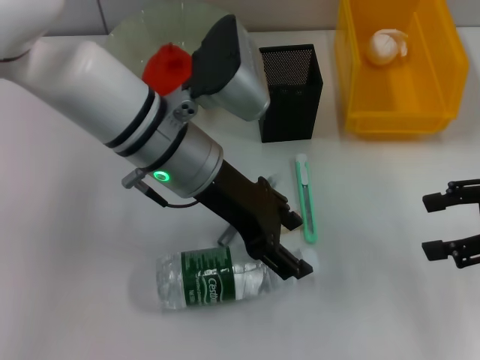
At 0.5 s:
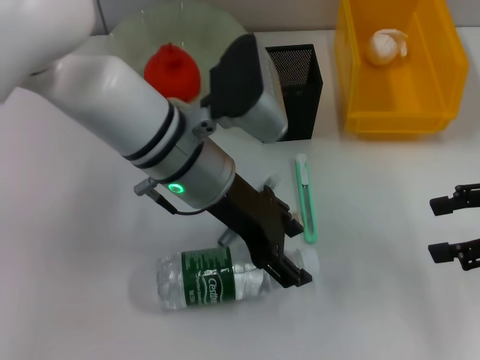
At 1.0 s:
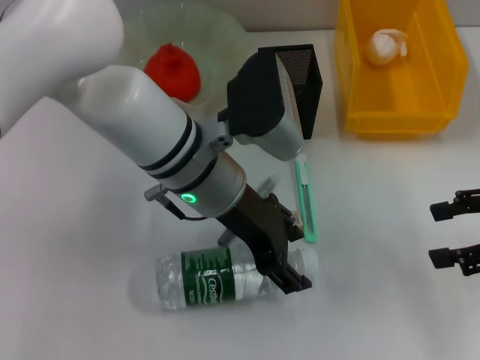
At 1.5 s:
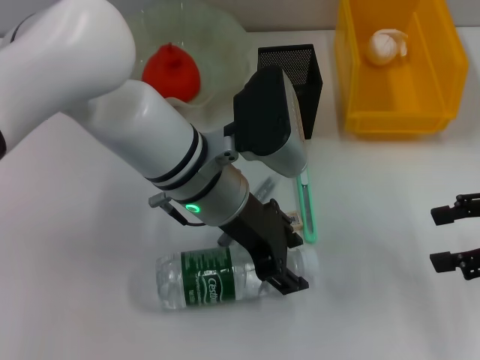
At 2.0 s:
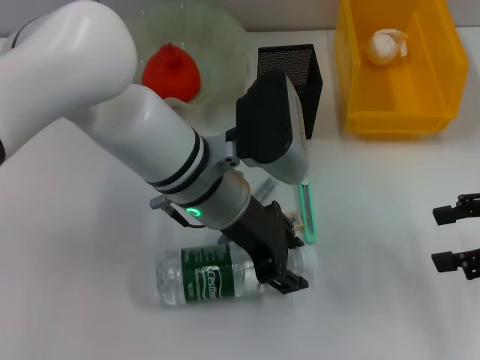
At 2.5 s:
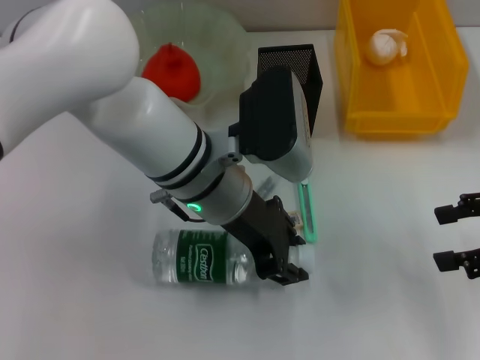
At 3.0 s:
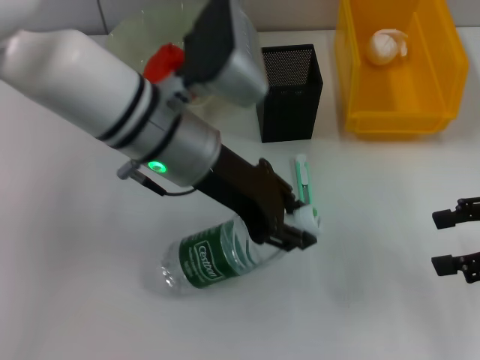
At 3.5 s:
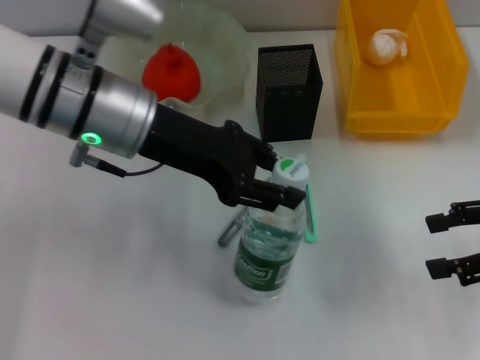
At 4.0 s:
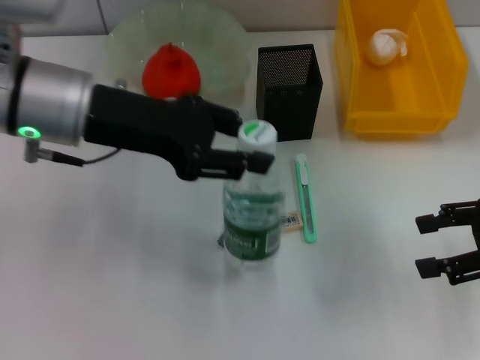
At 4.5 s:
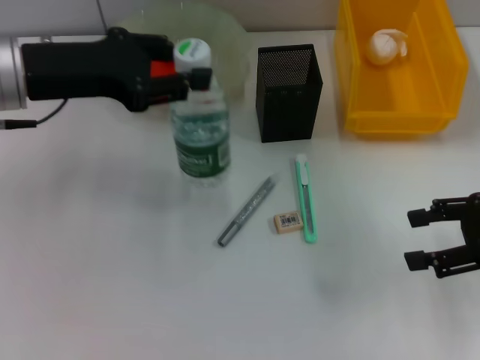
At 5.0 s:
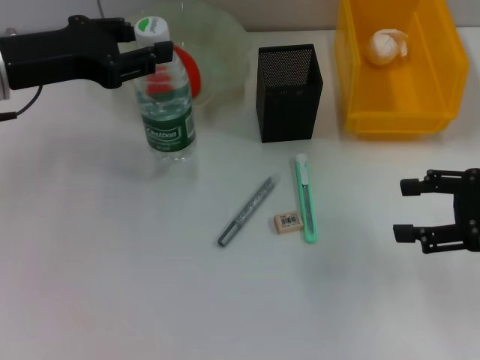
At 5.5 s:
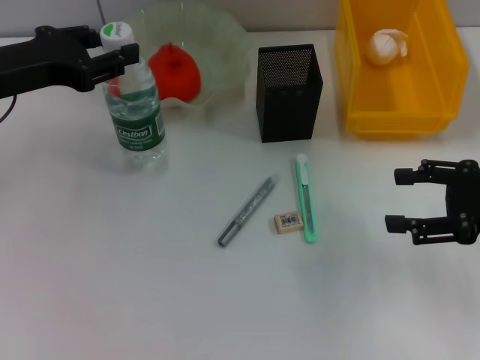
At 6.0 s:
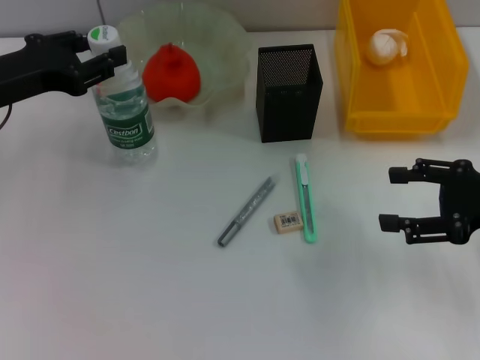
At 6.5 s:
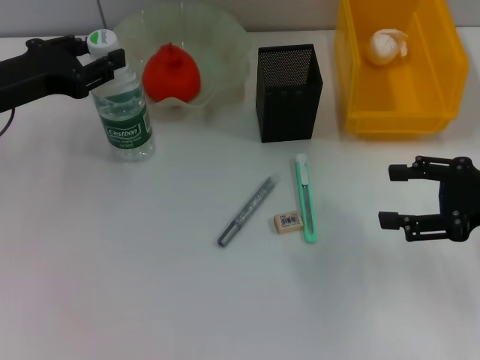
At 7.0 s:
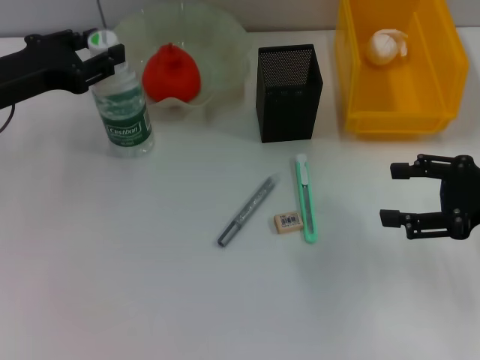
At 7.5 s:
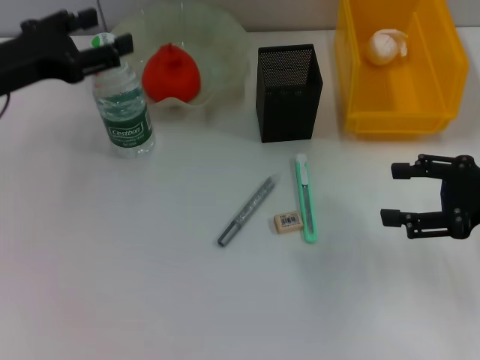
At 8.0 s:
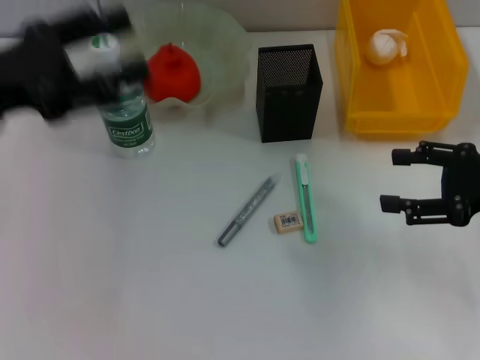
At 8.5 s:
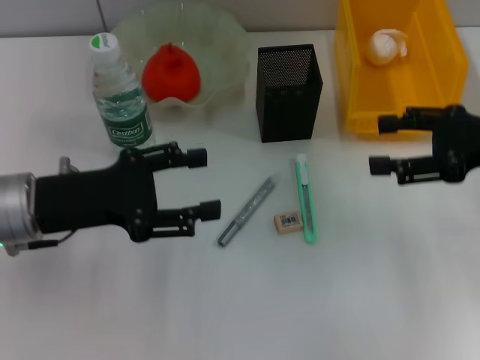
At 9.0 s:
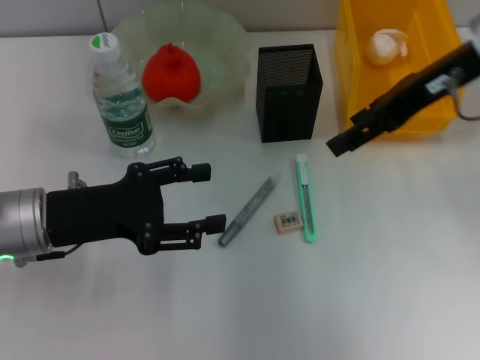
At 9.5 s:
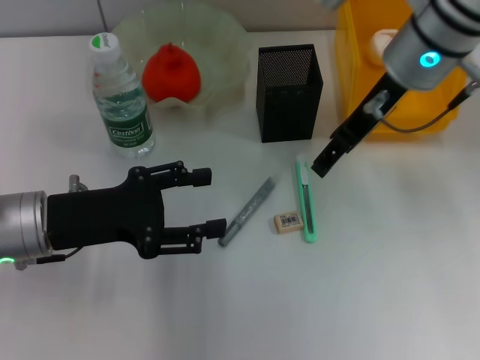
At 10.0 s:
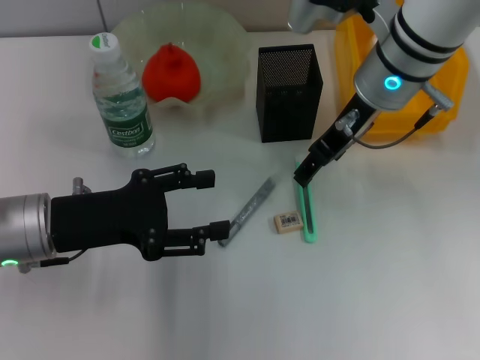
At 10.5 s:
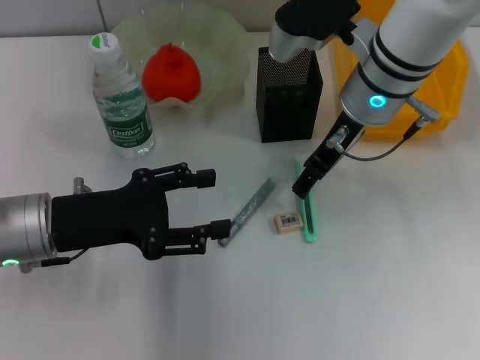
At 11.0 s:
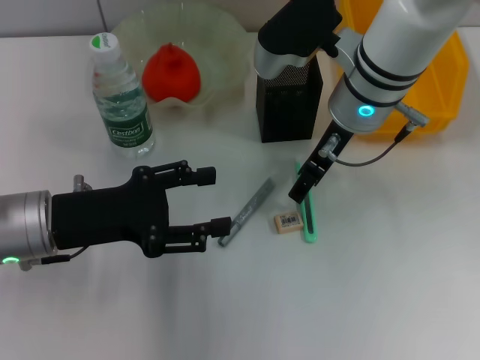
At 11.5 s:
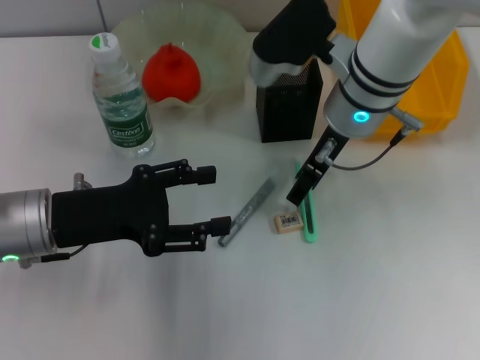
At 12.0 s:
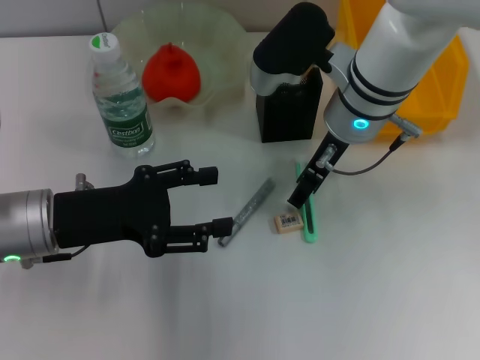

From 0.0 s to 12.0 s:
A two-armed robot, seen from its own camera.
Step, from 0.0 s to 2.0 s: Grab the water bottle with the left hand.
Step, from 2.5 s to 7.5 s: Place the water bottle on the table with the left hand.
From 2.0 s to 4.0 s: The left gripper goes about 15 cm to the left and upward.
From 4.0 s to 6.0 s: The left gripper is displaced to the left by roughly 10 cm.
From 6.0 s to 8.0 s: The left gripper changes place by some 5 cm, and opens.
From 8.0 s to 10.0 s: The right gripper shifts approximately 25 cm to the left and forward, while the left gripper shifts roughly 10 cm downward.
From 10.0 s to 12.0 s: The grippers make only small movements.

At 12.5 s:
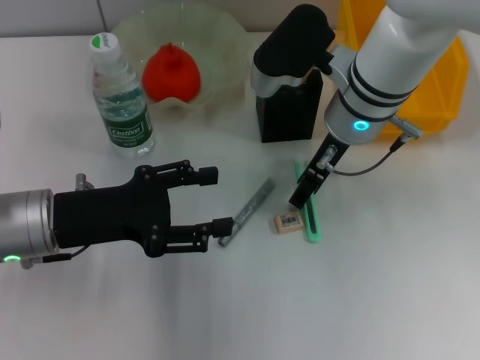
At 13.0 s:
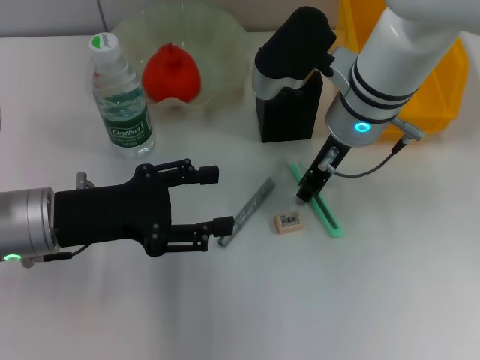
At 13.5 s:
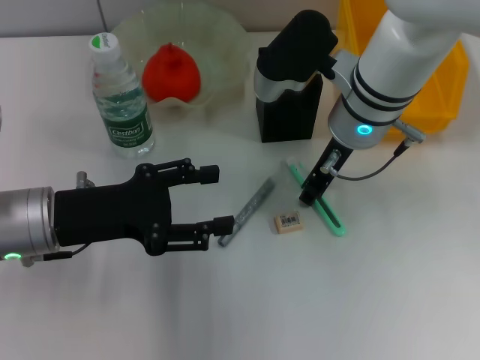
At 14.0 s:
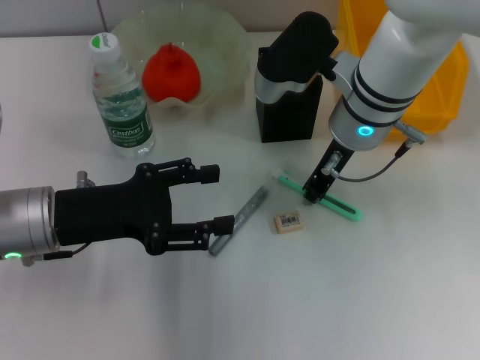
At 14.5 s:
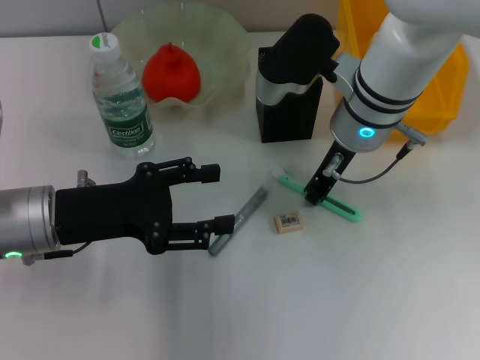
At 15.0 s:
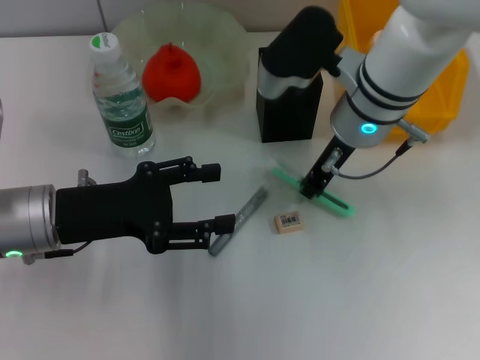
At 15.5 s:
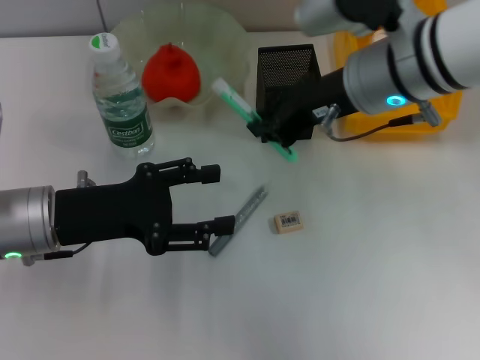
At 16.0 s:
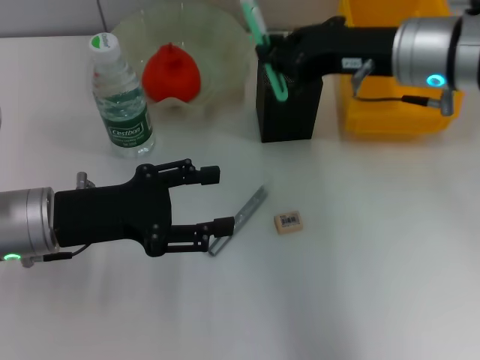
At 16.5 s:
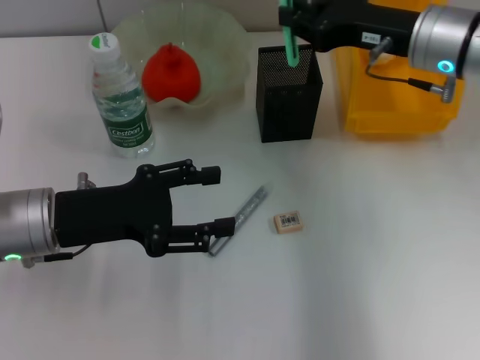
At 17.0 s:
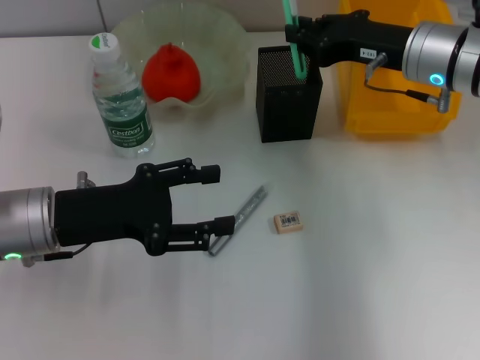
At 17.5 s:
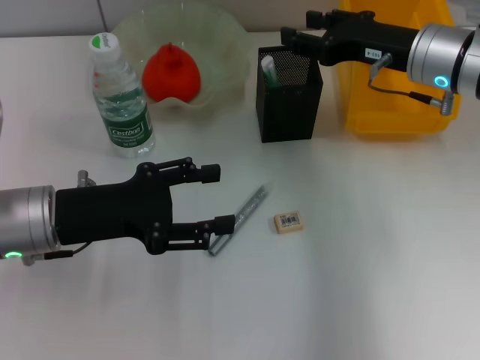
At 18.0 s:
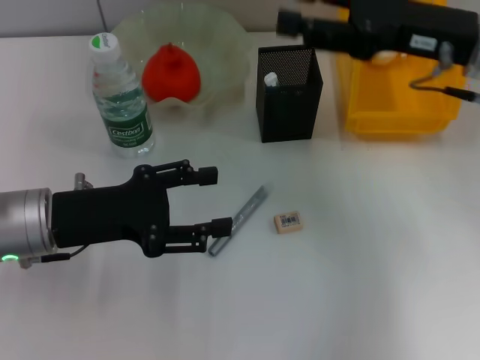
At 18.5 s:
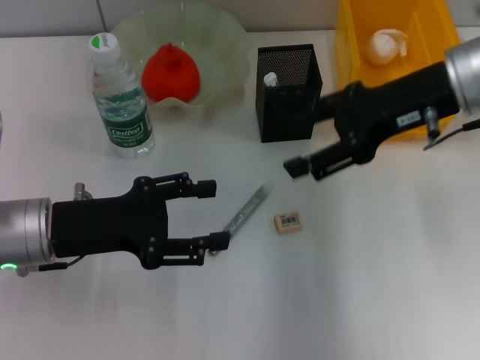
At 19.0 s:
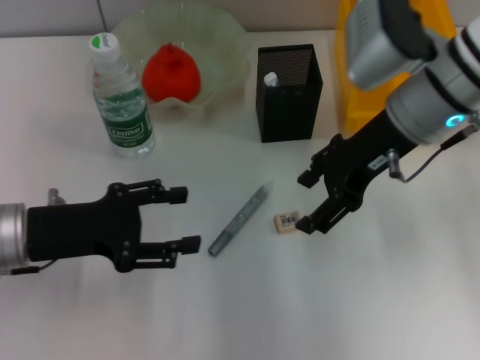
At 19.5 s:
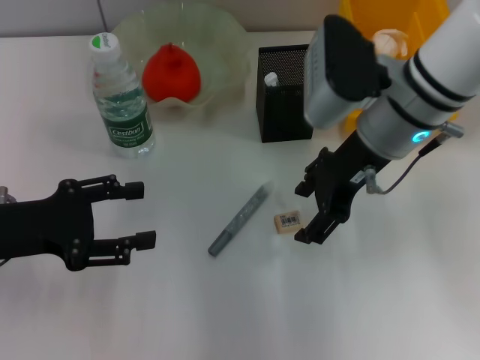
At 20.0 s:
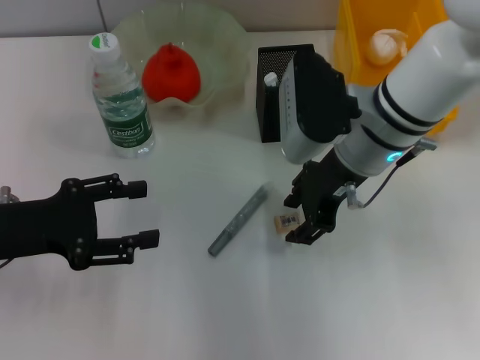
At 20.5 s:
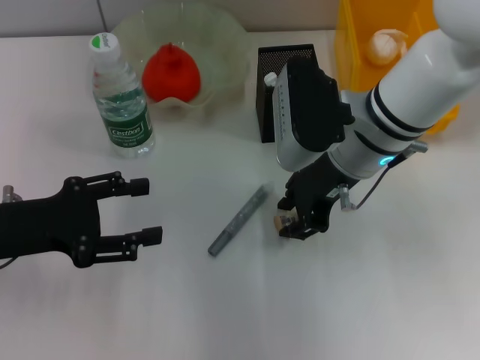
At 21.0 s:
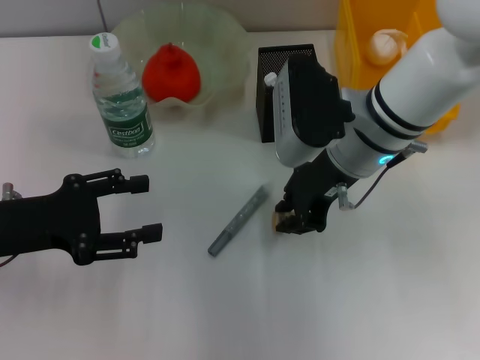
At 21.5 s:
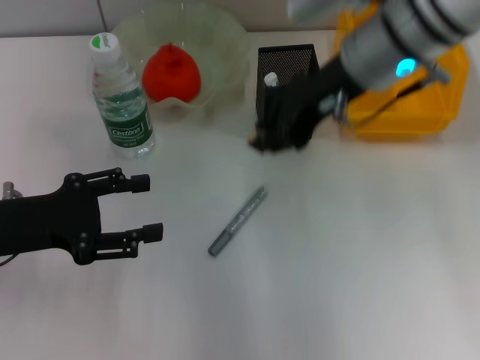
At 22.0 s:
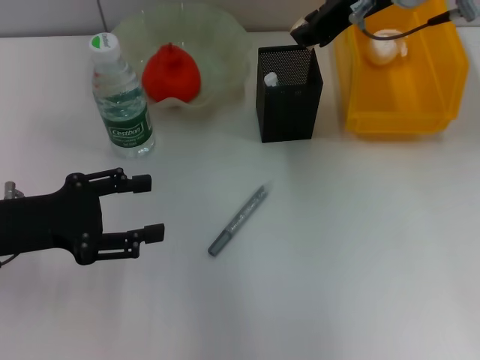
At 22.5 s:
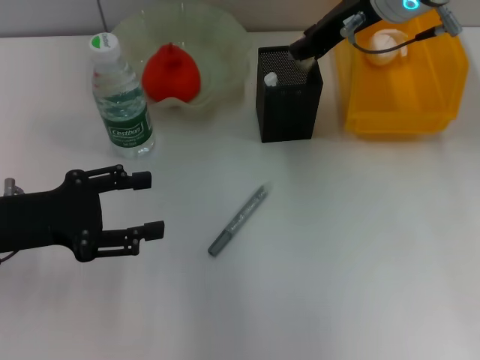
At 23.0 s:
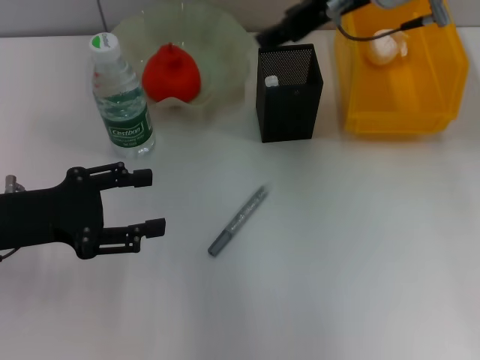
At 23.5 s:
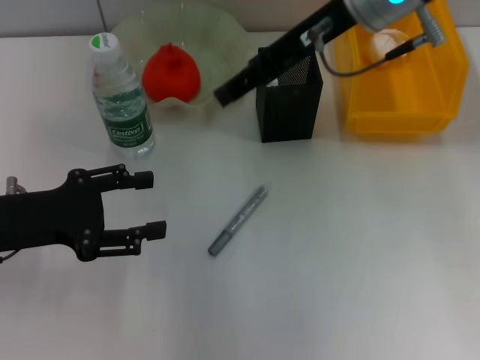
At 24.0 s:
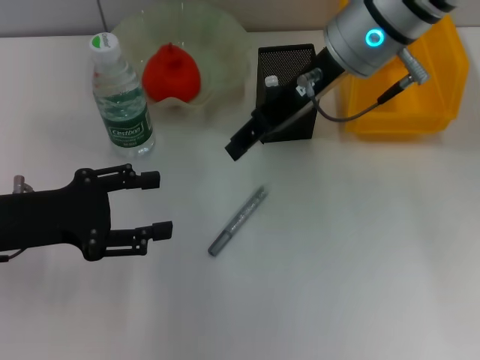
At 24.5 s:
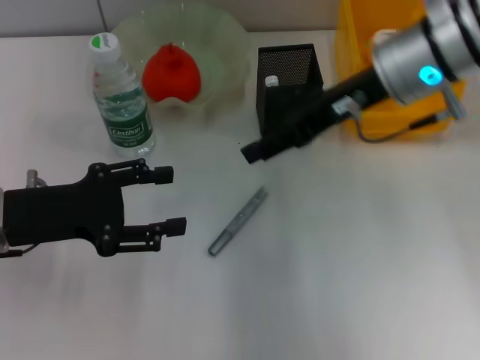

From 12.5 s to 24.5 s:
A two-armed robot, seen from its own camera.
Step, from 14.5 s to 17.5 s: Place the blue utility knife into the pen holder with the right hand.
Step, from 18.0 s to 20.5 s: Grab the eraser with the right hand.
Step, from 21.0 s to 23.0 s: Put the eraser into the pen holder with the right hand.
From 12.5 s to 14.5 s: The right gripper closes up.
From 14.5 s to 16.5 s: The right gripper is displaced to the right by roughly 10 cm.
From 16.5 s to 18.5 s: The right gripper opens.
From 18.5 s to 20.5 s: The left gripper is displaced to the left by roughly 5 cm. Meanwhile the right gripper moves to the left and downward, some 10 cm, and closes its fingers.
From 20.5 s to 22.5 s: The right gripper shifts roughly 10 cm upward and forward.
From 22.5 s to 24.5 s: The right gripper shifts about 5 cm backward, and opens its fingers.

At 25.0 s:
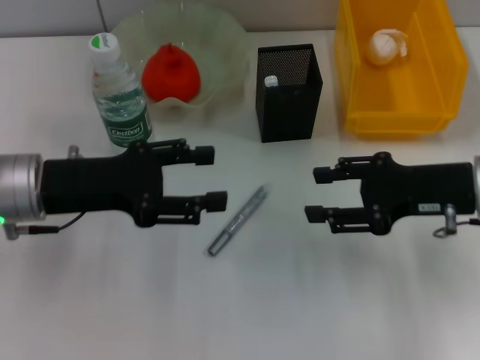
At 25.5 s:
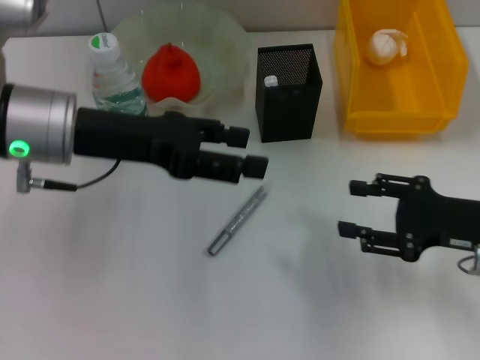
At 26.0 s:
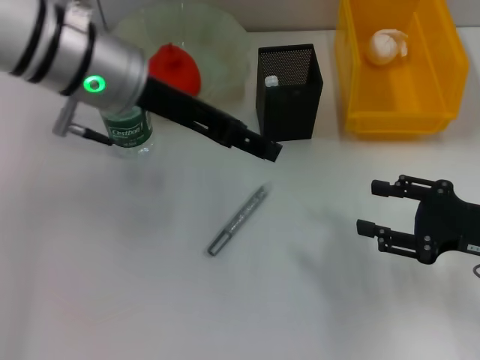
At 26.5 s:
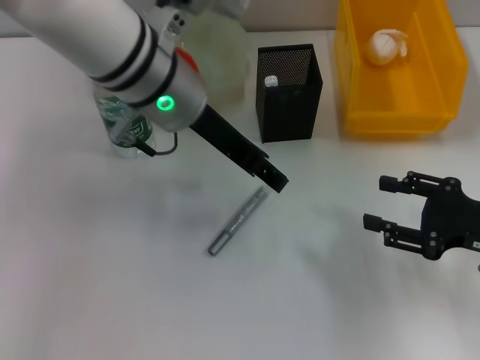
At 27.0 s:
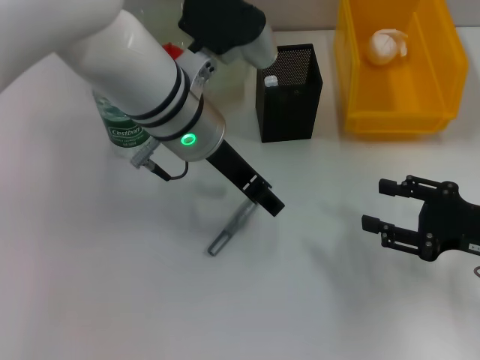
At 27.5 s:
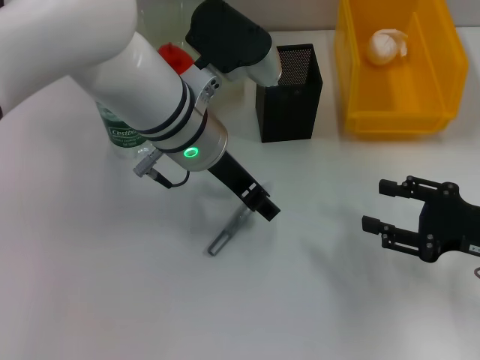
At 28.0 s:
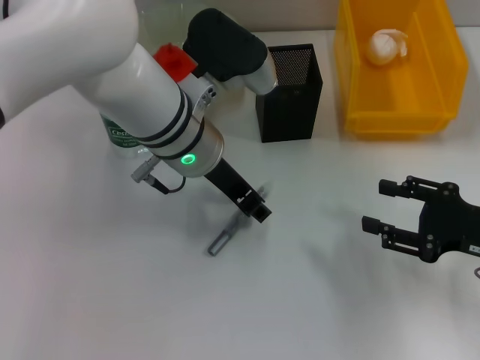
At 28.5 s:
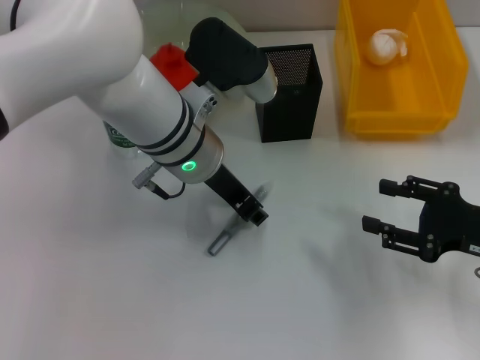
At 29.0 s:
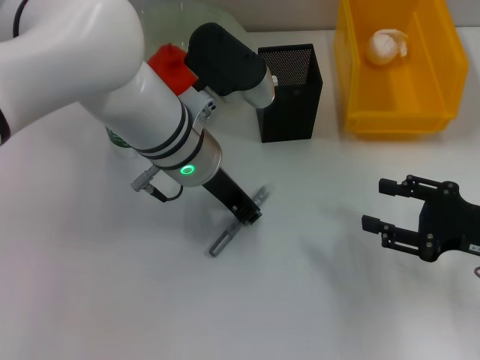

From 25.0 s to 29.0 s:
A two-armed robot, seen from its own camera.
From 25.0 s to 27.0 s: The right gripper goes approximately 10 cm to the right, downward and backward; the left gripper is displaced to the right by roughly 15 cm.
From 27.0 s to 29.0 s: The left gripper closes its fingers.
